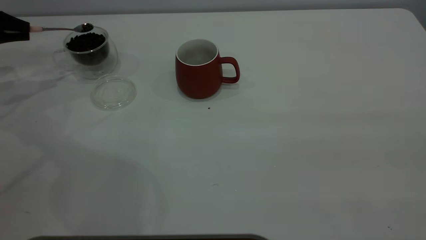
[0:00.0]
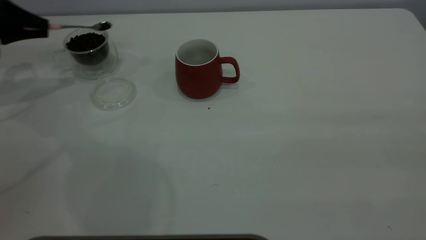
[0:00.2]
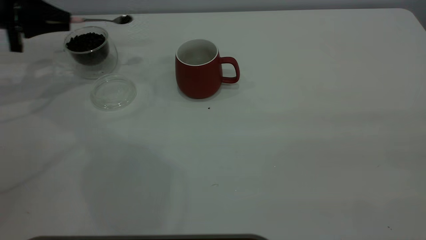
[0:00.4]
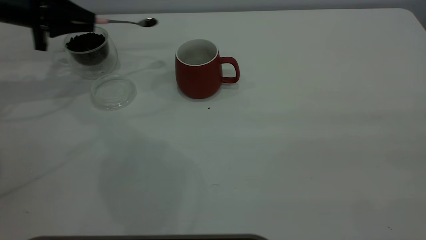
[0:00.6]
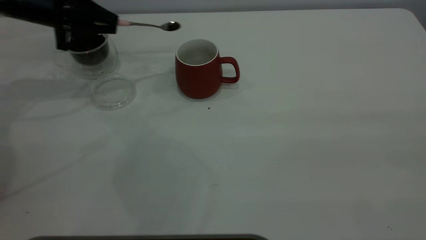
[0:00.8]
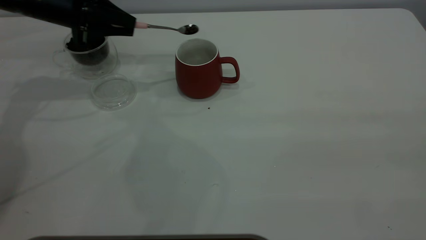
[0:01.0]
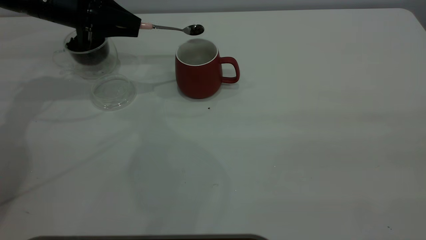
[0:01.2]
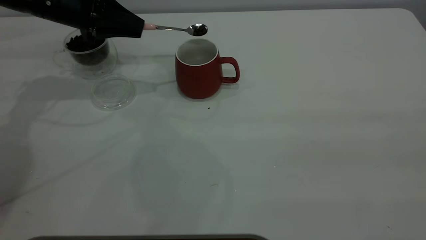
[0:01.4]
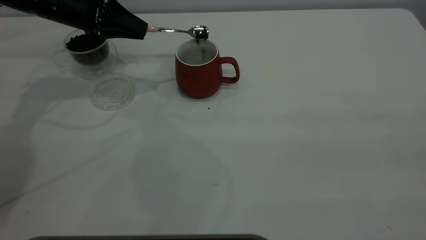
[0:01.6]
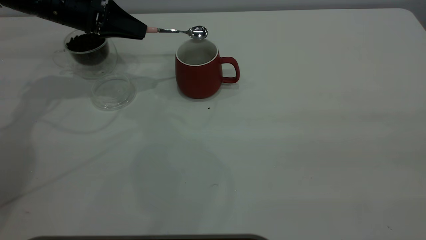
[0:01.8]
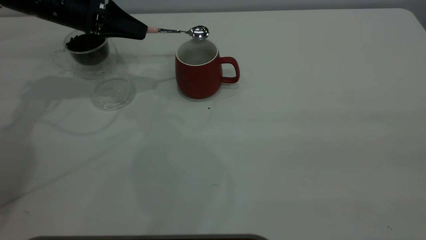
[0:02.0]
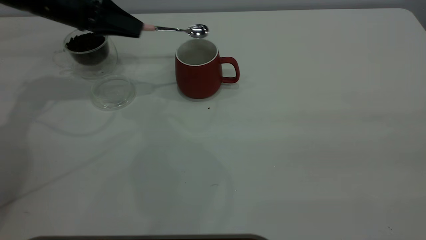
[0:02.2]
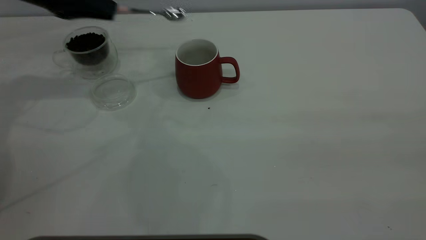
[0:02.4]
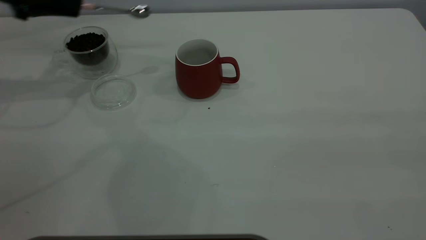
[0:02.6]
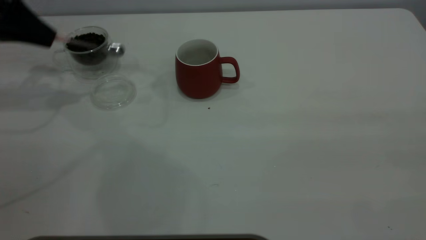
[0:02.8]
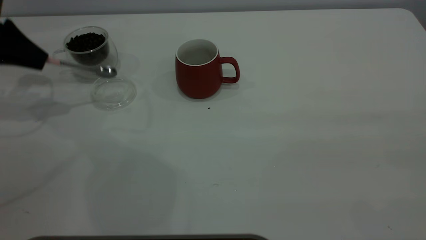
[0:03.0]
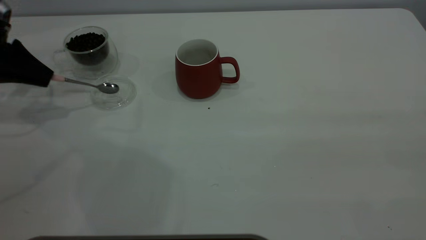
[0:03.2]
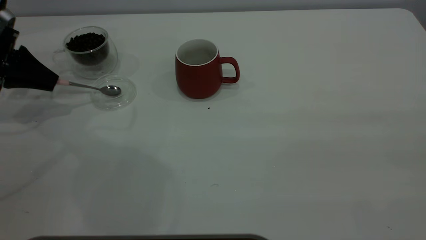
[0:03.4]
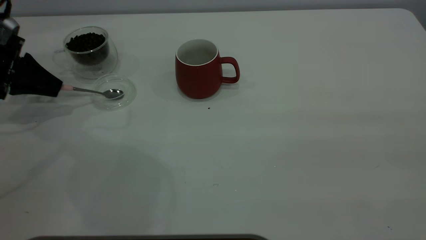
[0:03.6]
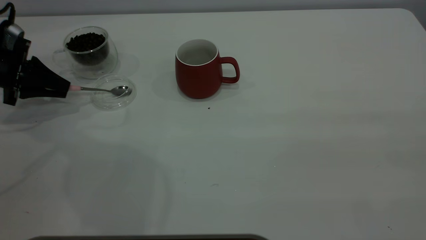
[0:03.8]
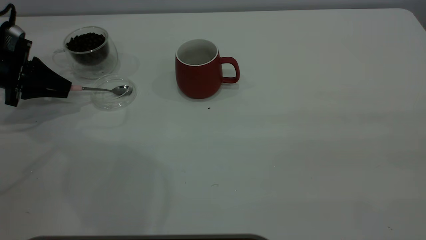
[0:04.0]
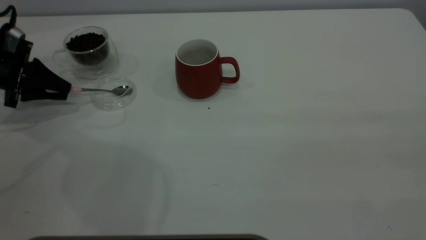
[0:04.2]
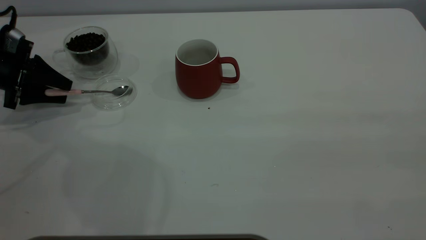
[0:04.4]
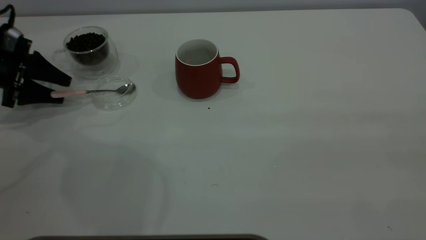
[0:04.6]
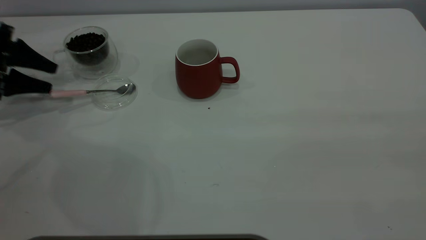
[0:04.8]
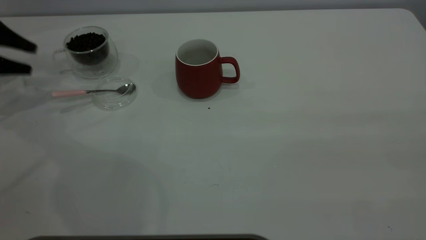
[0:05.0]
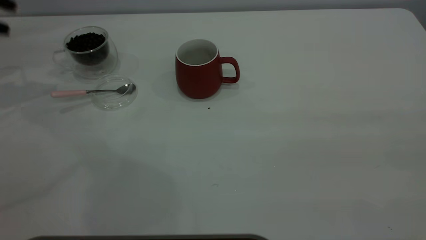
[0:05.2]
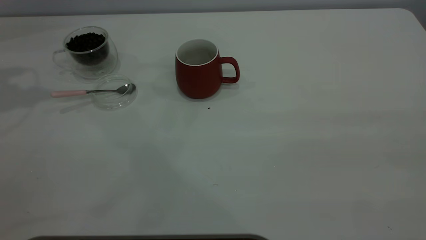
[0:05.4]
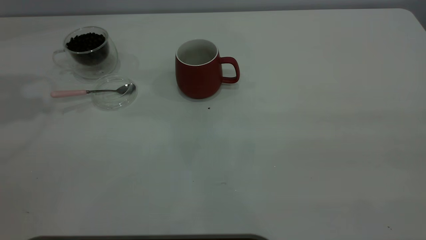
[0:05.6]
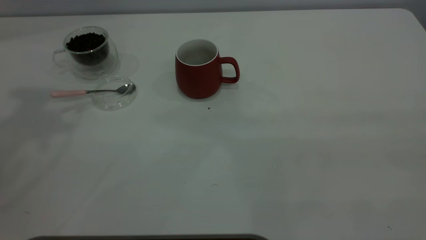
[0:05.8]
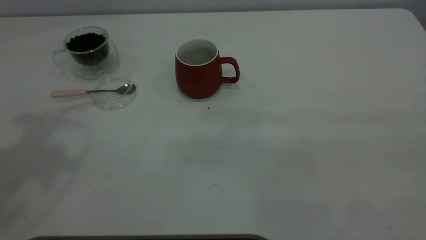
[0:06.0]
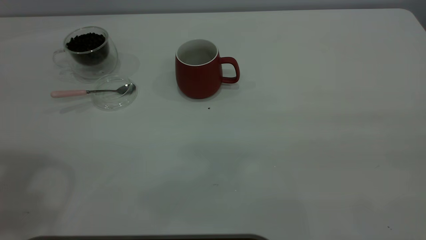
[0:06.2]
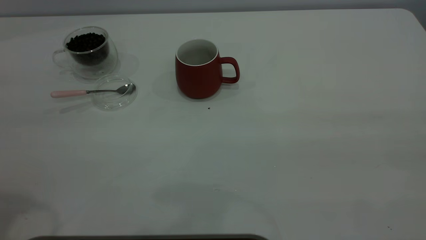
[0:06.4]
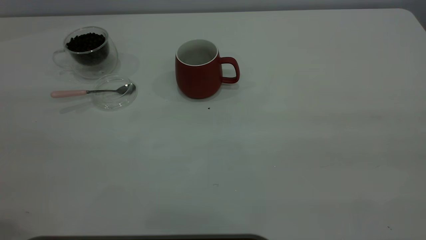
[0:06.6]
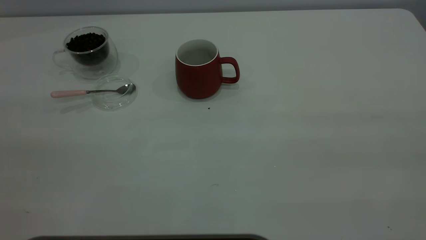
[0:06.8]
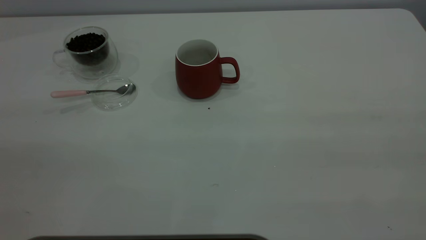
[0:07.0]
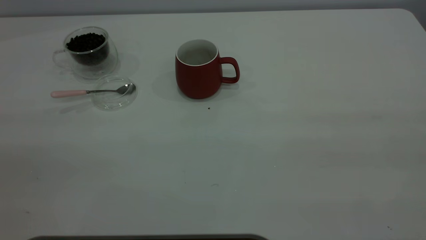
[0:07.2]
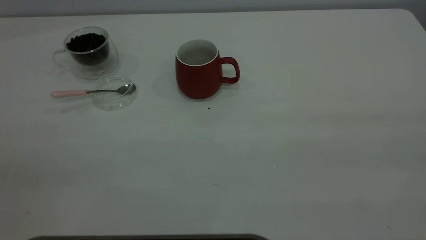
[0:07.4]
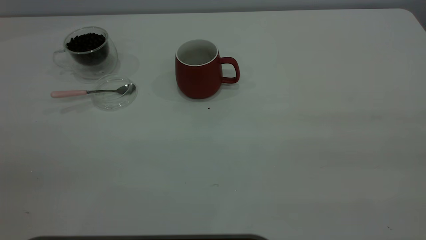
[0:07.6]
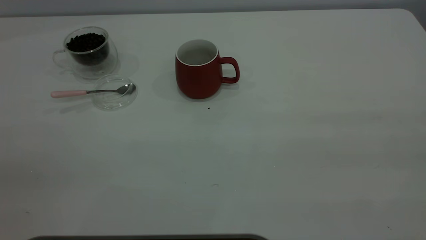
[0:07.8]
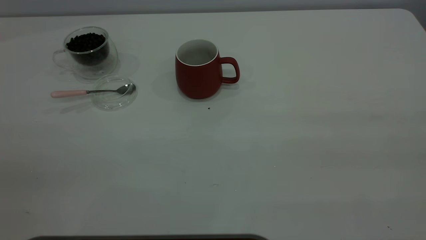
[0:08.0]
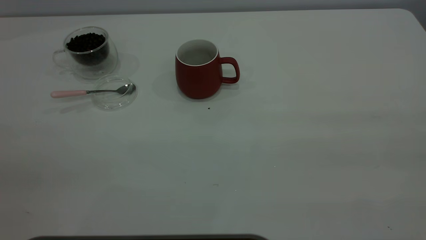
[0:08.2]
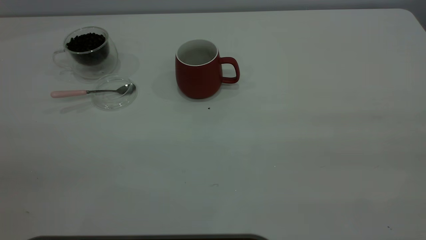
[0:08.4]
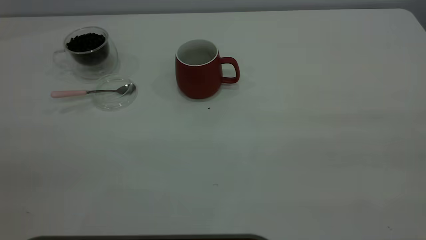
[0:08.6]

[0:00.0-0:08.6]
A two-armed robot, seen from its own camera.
Task of the whole recording: the right gripper place the red cup in the center of the table, the left gripper take the pink spoon from the cup lid and scoop out the coffee beans from the coffee cup and put them into the red cup, the left gripper put the spoon back into the cup lid.
Step, 0:00.0 to 0:02.2: Scoop a spoonful of beans into the cup.
Step, 0:02.4 to 0:05.0: Place the spoon back in its original place.
0:00.0 to 0:01.4: The left gripper shifts roughly 20 cm to the right.
0:01.4 to 0:02.8: The left gripper heads to the left, covering approximately 15 cm.
0:02.8 to 0:04.4: The left gripper goes approximately 10 cm downward, and opens up.
0:04.4 to 0:05.8: The left gripper moves upward, approximately 35 cm.
